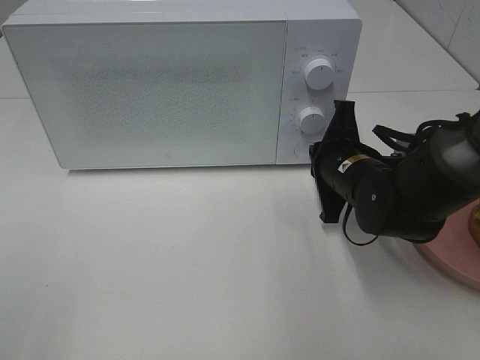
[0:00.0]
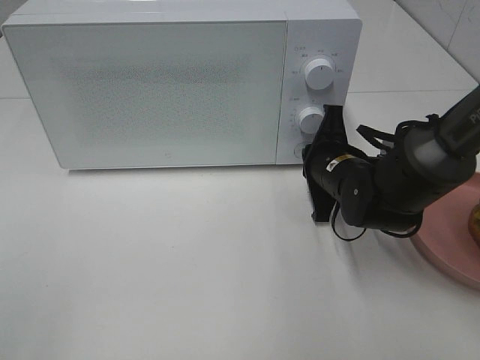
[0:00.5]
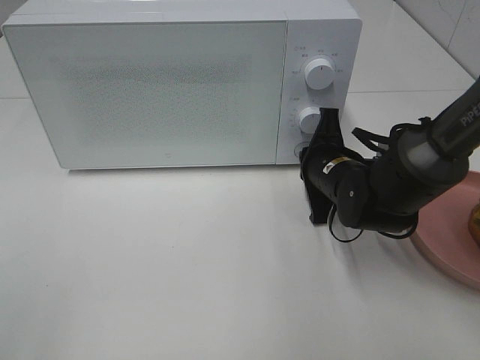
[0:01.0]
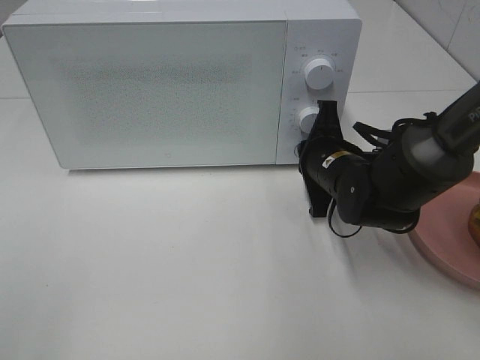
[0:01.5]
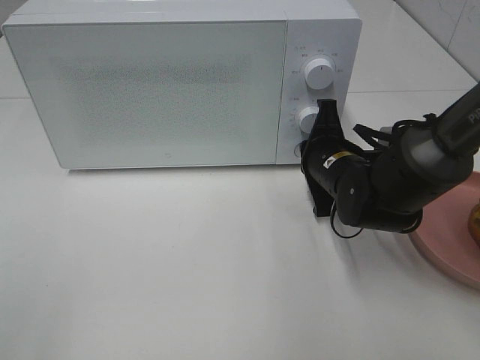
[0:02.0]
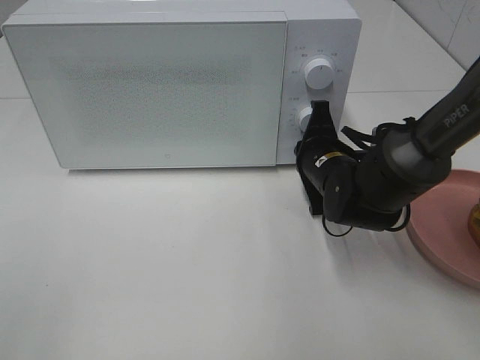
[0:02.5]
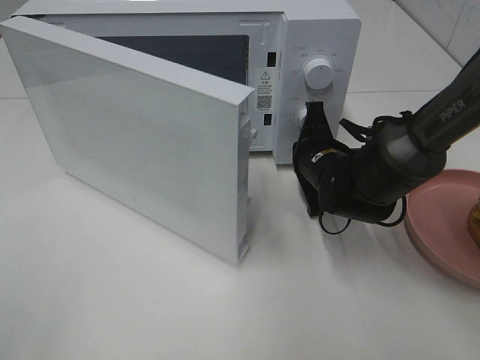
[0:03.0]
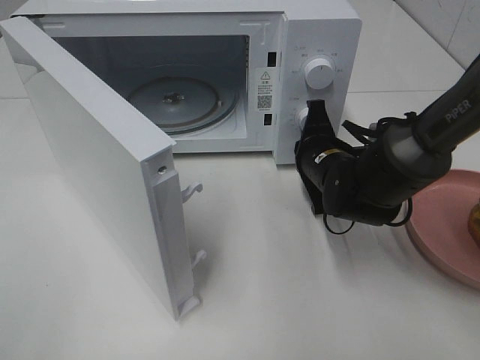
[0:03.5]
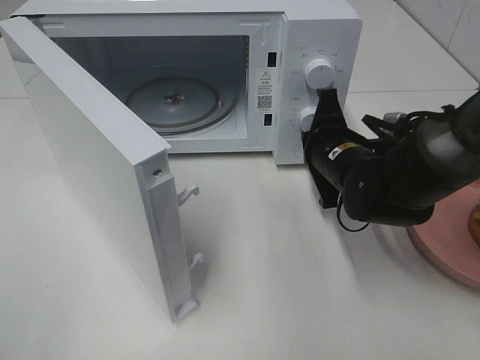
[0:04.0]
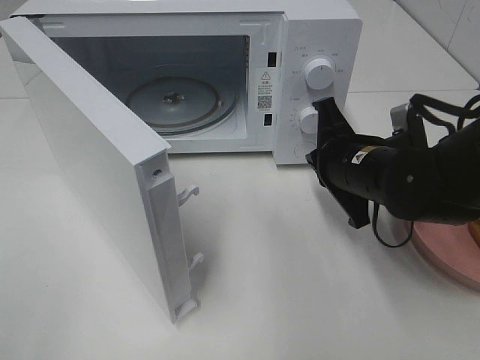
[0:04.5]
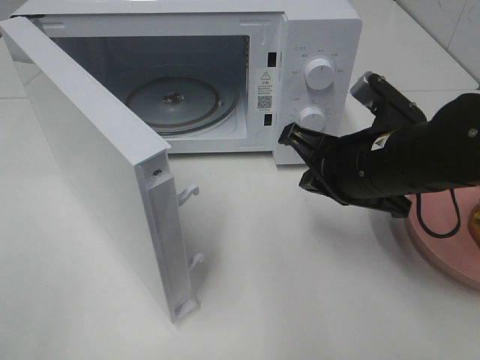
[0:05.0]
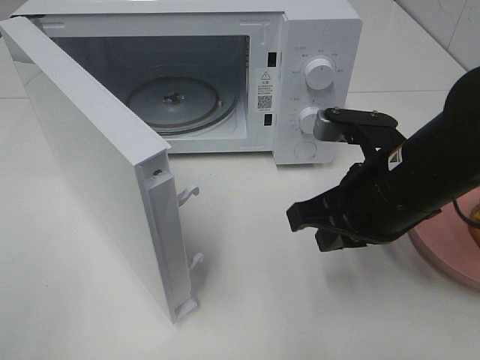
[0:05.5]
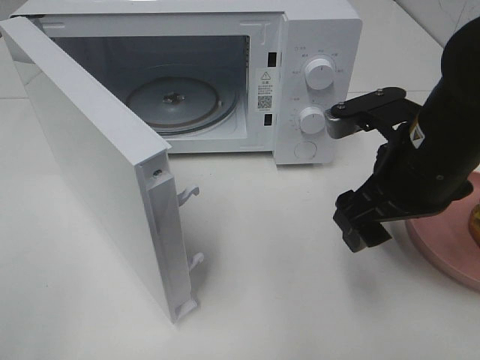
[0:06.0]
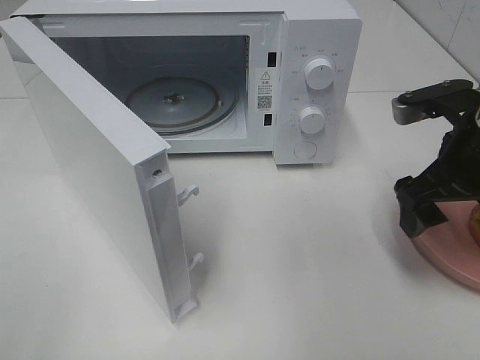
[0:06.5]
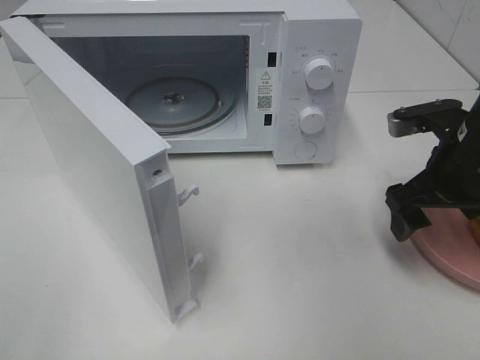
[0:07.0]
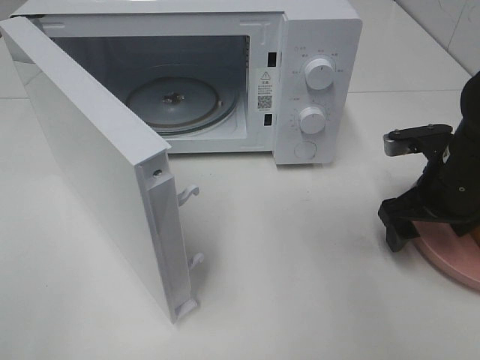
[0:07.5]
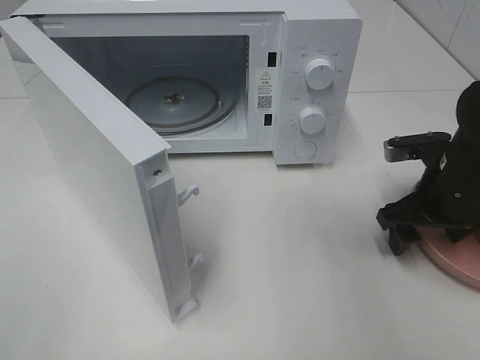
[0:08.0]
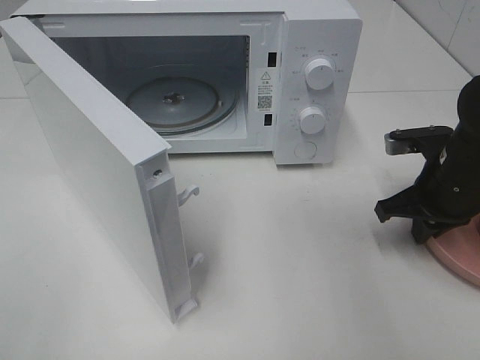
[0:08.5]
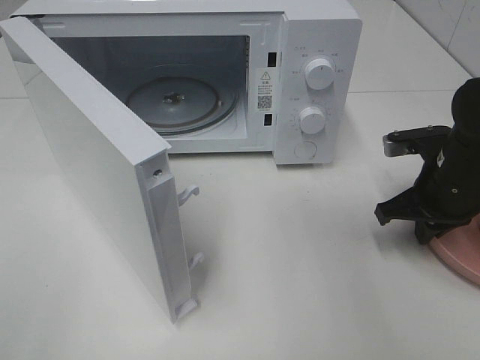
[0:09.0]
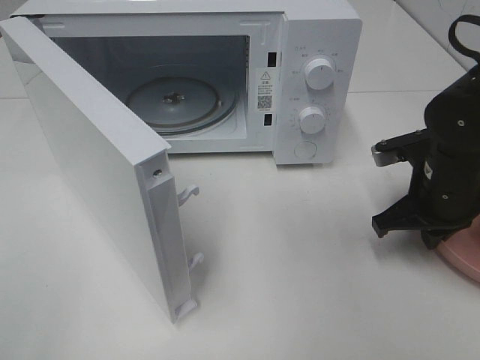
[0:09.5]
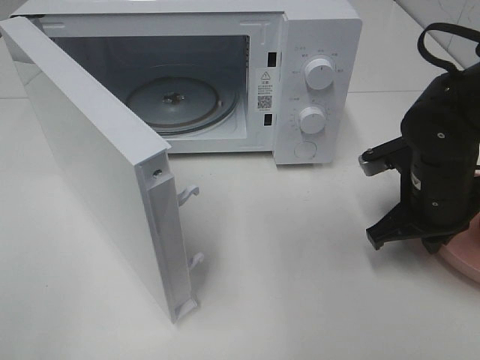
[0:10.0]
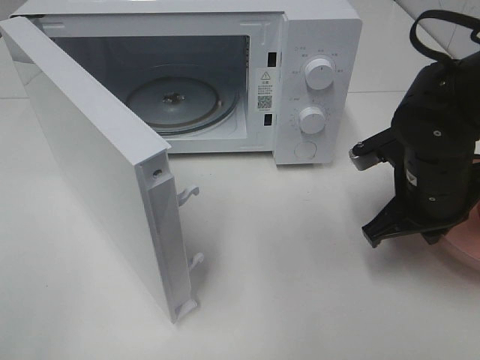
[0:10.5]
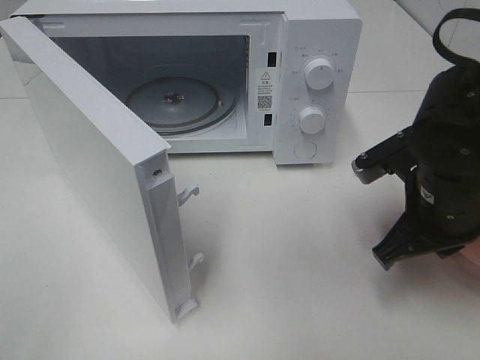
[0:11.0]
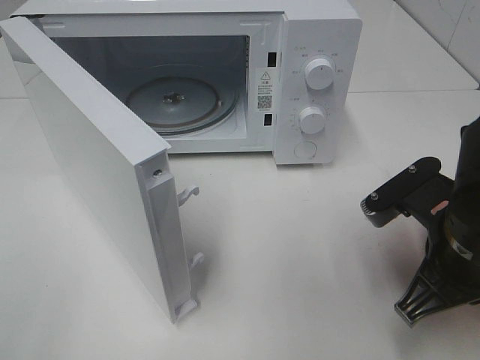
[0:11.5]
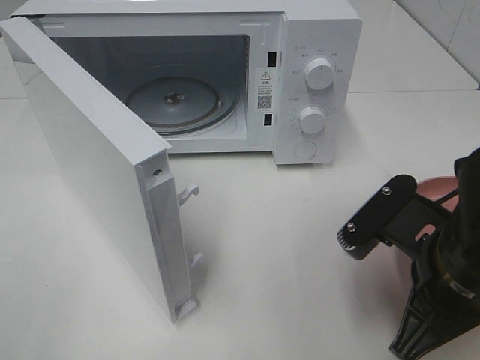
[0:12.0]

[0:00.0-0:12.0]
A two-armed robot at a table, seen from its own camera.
Task of the whole recording: Heat the burger.
Step, 0:00.0 to 0:04.0: Right hand: press the switch.
Step, 0:04.5 to 0:09.5: Right hand: grab the plate with the hamburger.
0:00.0 to 0:02.0: The grippers stay close to where they were, moving slightly.
0:04.0 to 0:06.0: The right gripper moves upward and backward, about 15 cm, and opens.
0:06.0 to 0:08.0: The right gripper travels downward, to the right and forward by some 15 cm.
0:08.0 to 0:10.0: The right gripper changes place by about 5 cm, and closes up.
0:10.0 to 0:12.0: The right gripper goes some 15 cm backward.

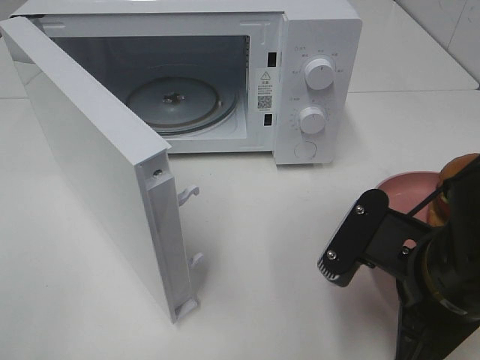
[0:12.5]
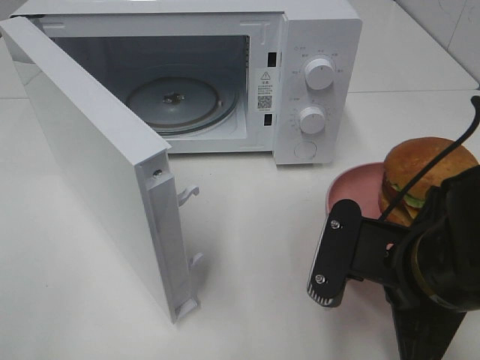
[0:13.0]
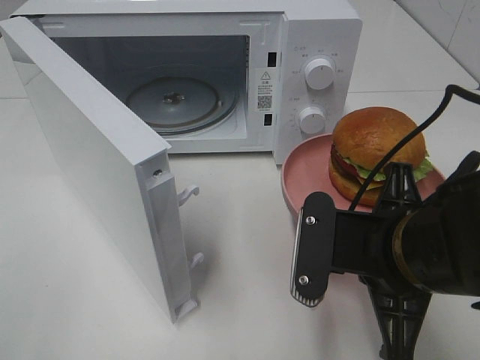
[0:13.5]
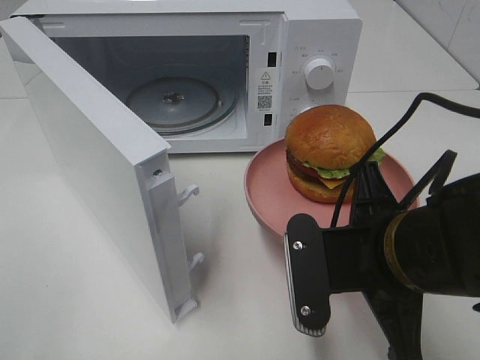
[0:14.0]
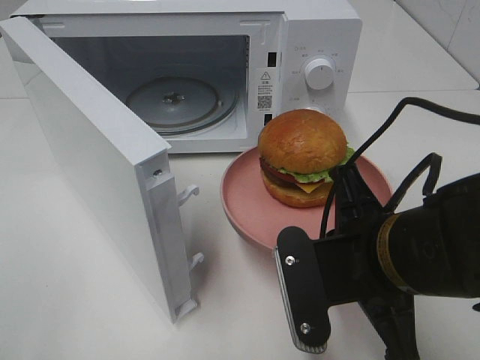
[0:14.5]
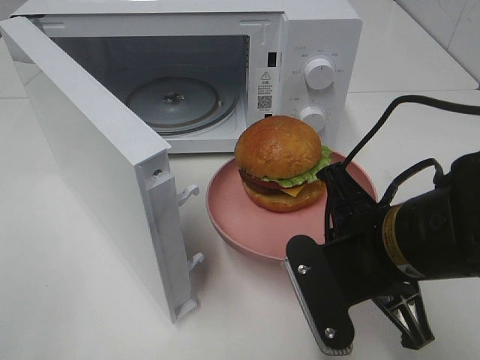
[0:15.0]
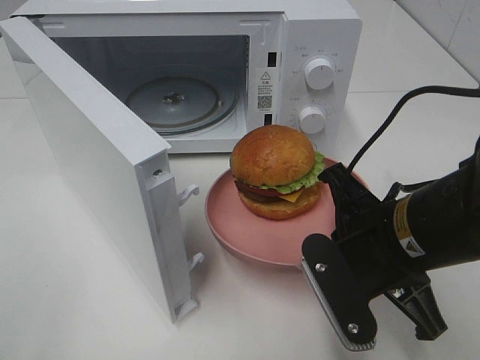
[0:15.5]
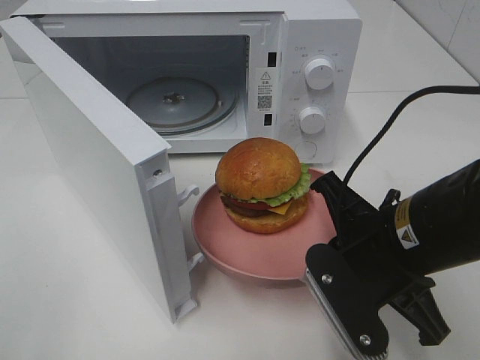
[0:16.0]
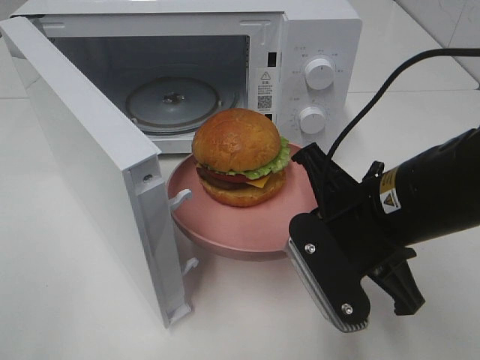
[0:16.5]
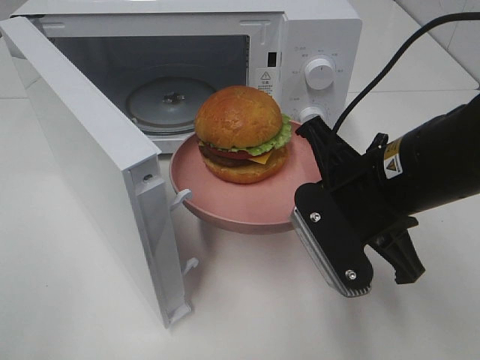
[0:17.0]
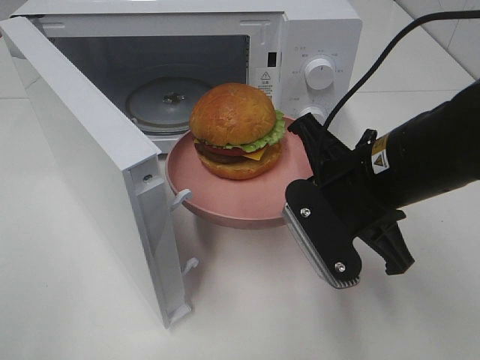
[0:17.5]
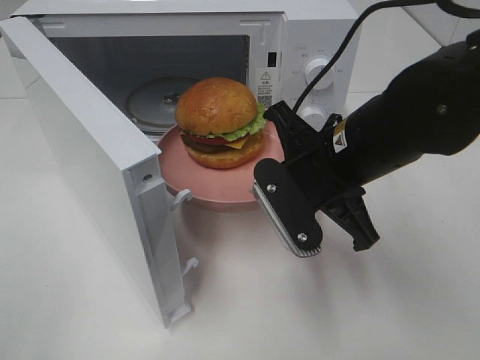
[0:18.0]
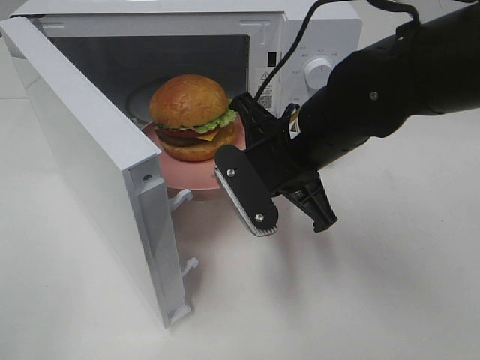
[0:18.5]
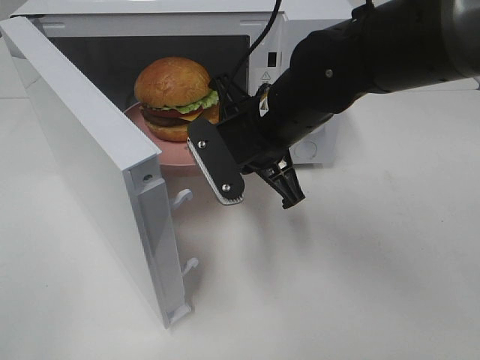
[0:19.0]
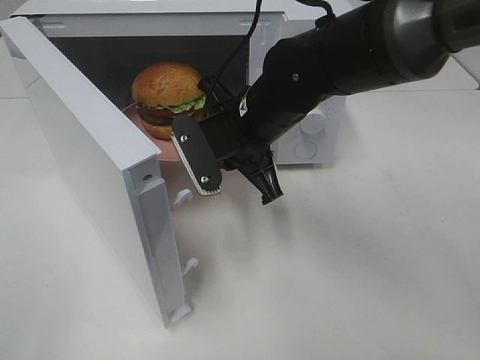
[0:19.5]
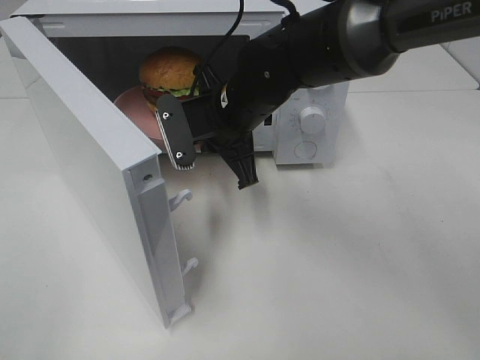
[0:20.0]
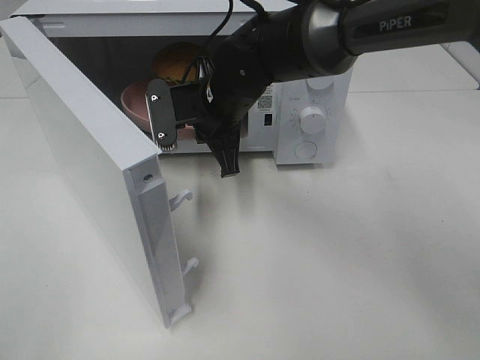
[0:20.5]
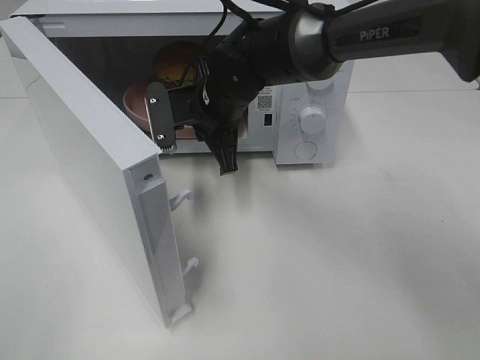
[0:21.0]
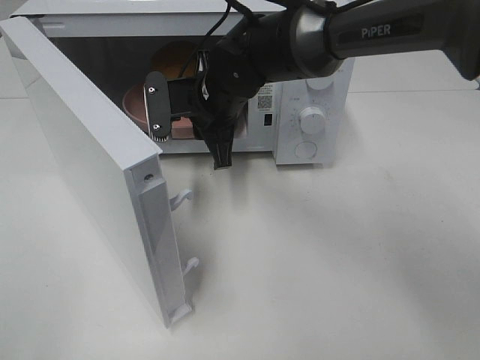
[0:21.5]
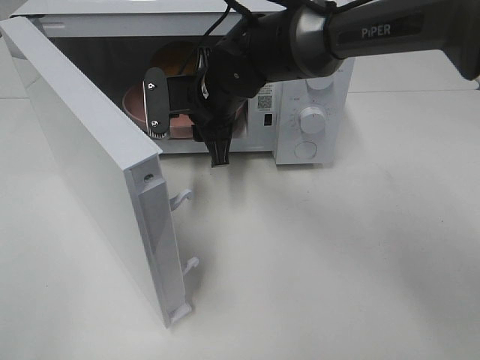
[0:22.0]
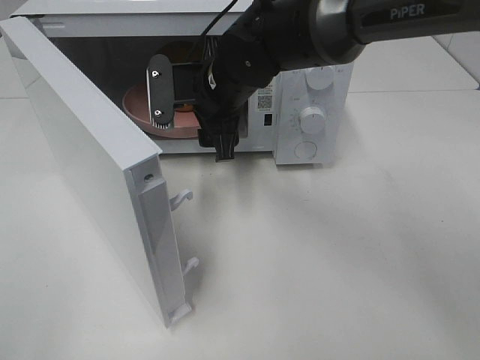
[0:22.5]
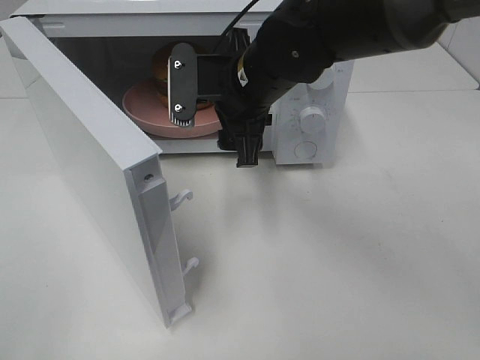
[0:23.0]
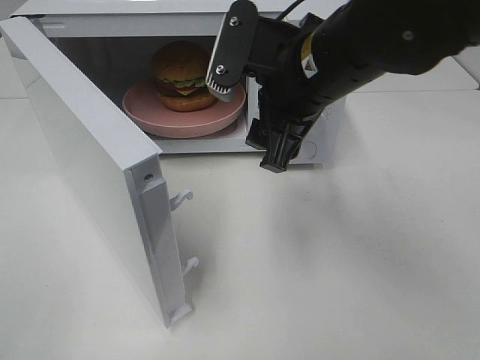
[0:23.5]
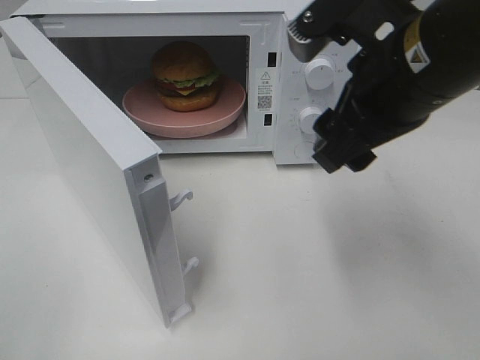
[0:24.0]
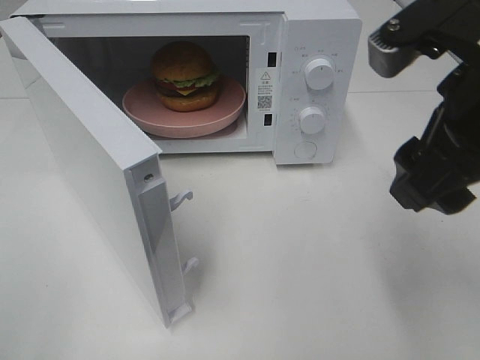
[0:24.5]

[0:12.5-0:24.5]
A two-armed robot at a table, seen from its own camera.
Task of the whole recording: Heat the burger.
Step, 0:12.5 to 0:21.0: Right hand: place the plate in the microwave.
0:16.5 to 0:18.5: The right gripper moves forward and to the left, roughly 10 cm.
0:18.5 to 0:20.5: The right gripper is displaced forward and to the left by about 15 cm.
0:20.5 to 0:22.5: The right gripper opens its fingers.
0:22.5 to 0:24.5: The right gripper is displaced backward, to the right and upward by approximately 30 cm.

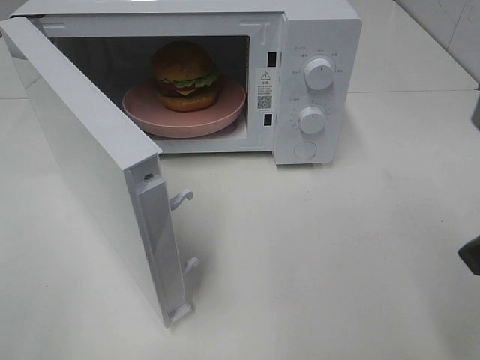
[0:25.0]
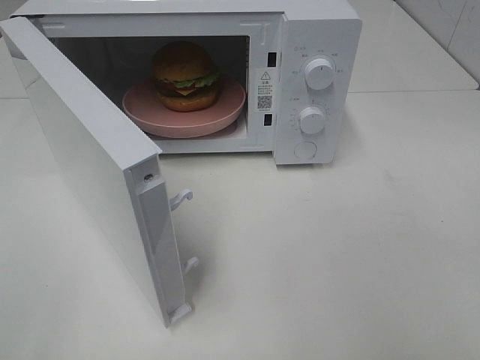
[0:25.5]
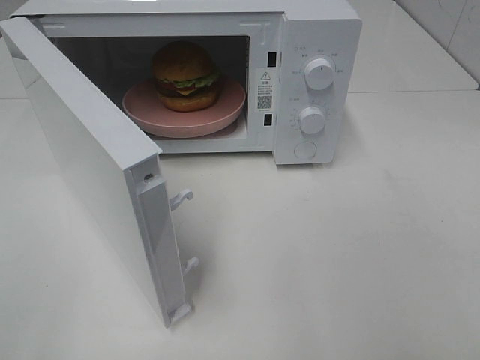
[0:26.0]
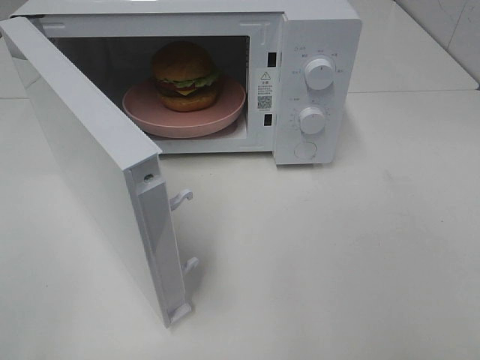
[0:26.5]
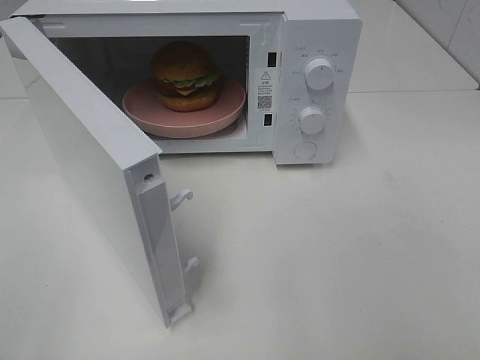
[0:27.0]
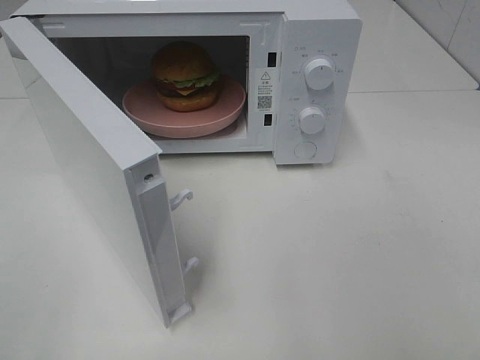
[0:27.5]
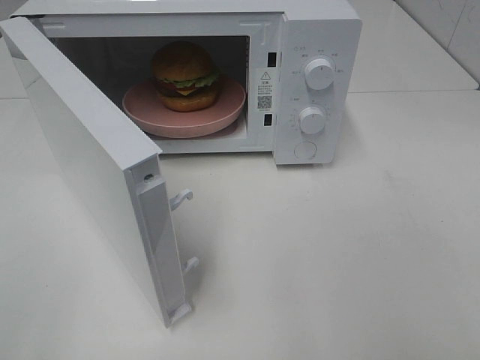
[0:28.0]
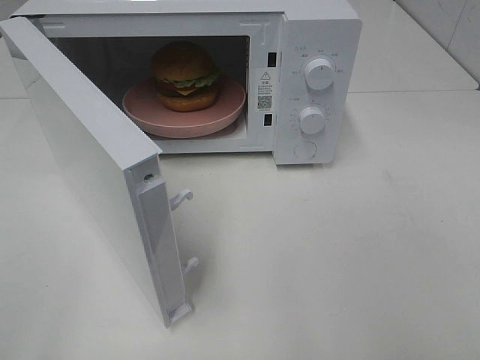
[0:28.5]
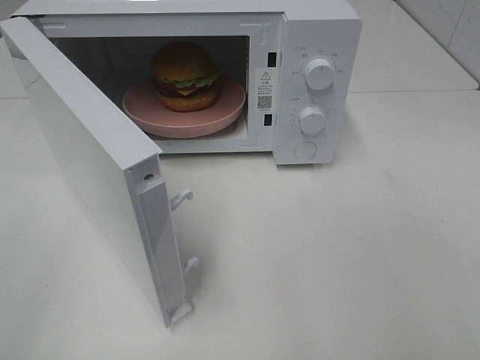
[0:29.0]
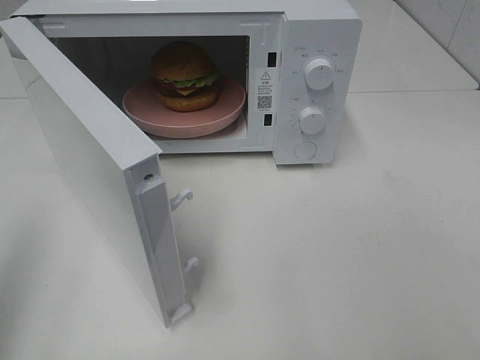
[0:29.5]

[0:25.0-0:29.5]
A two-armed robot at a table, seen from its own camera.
Task of the whole recording: Heat the burger.
0:25.0 to 0:27.0: The right gripper travels backward and to the right by roughly 15 cm.
0:27.0 to 0:29.5: The left gripper travels forward and upward by roughly 10 cm, and closes up.
